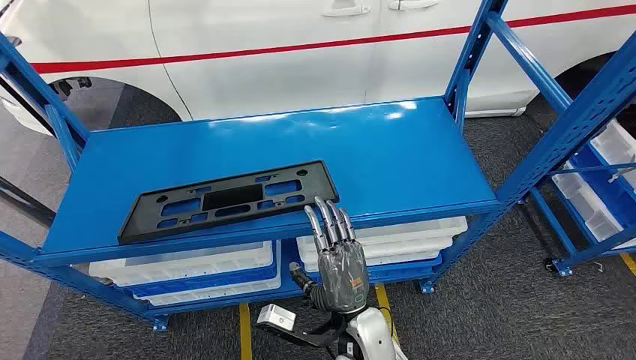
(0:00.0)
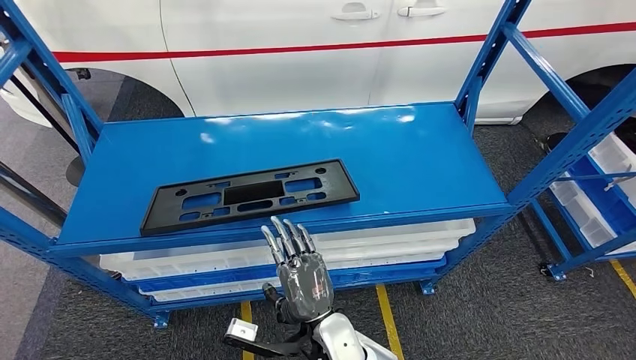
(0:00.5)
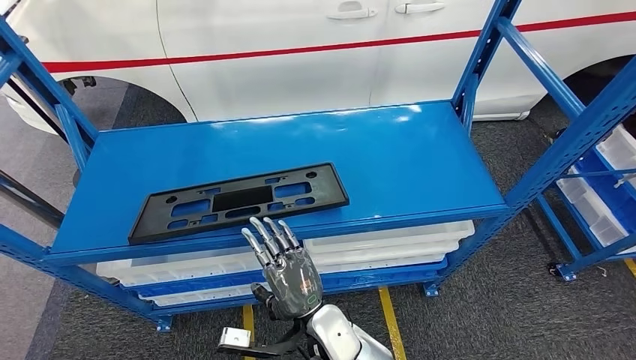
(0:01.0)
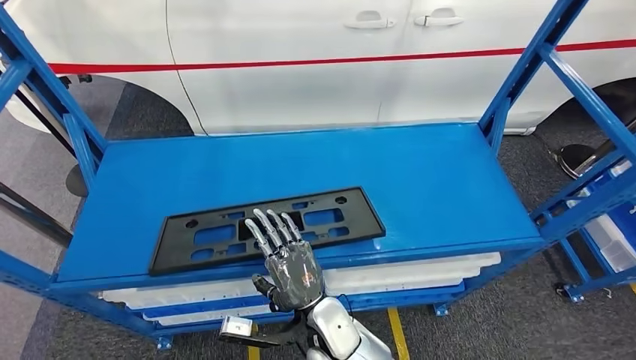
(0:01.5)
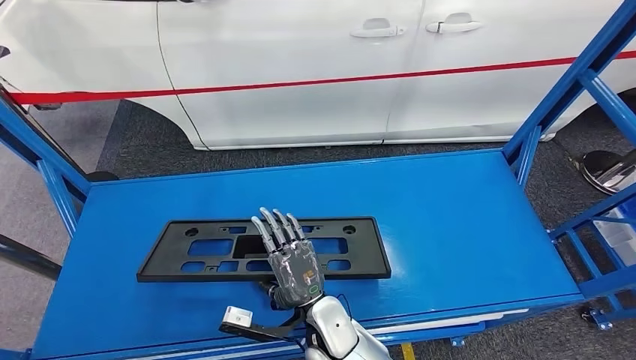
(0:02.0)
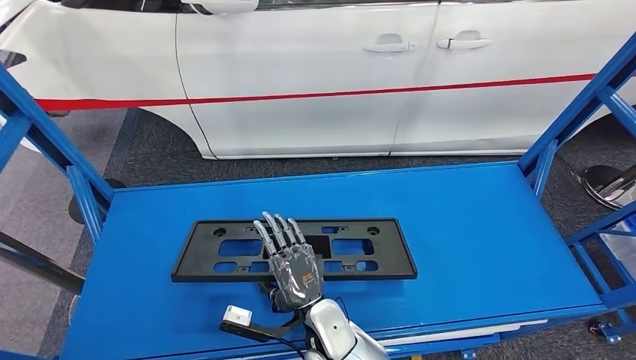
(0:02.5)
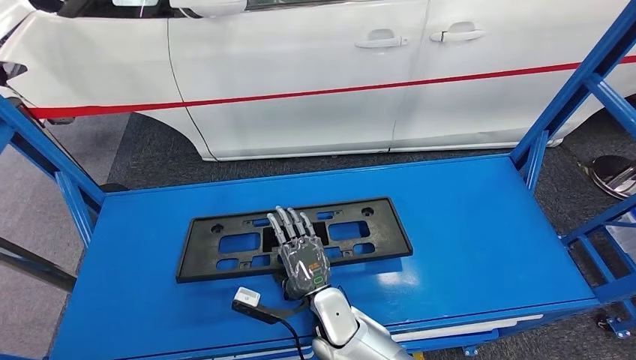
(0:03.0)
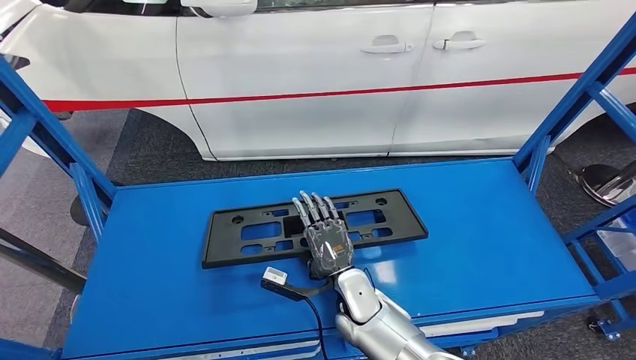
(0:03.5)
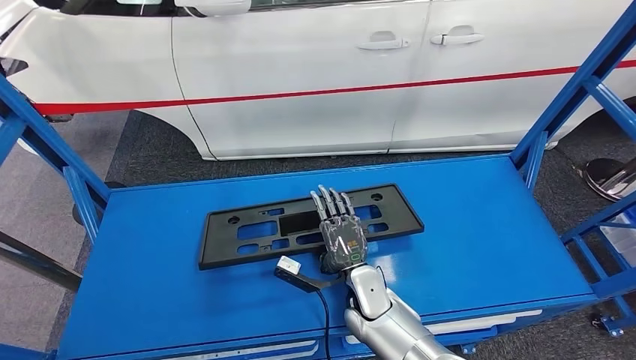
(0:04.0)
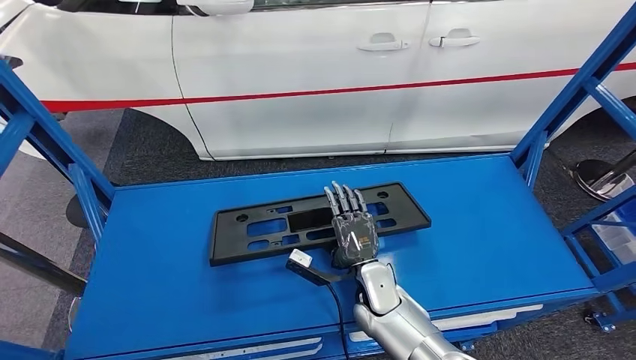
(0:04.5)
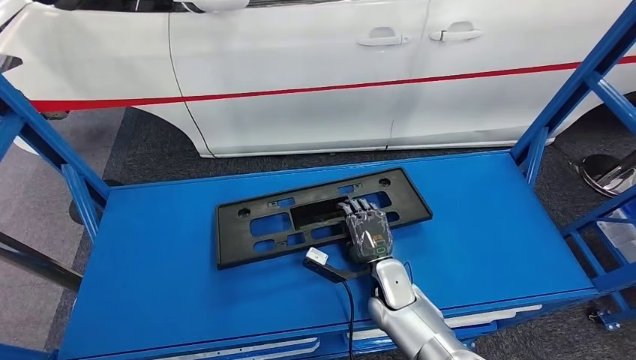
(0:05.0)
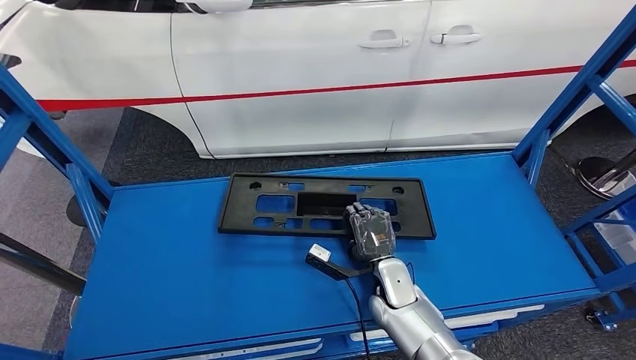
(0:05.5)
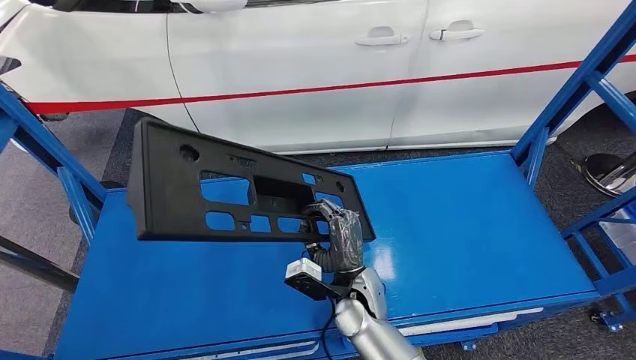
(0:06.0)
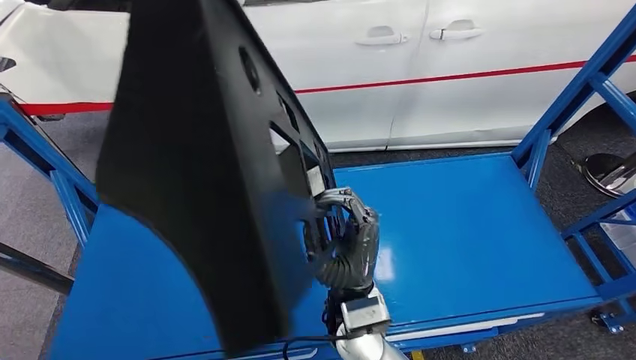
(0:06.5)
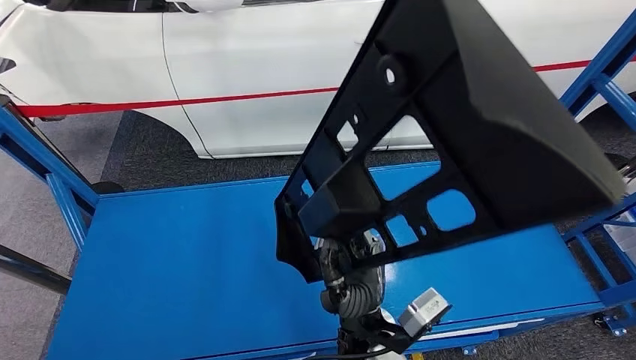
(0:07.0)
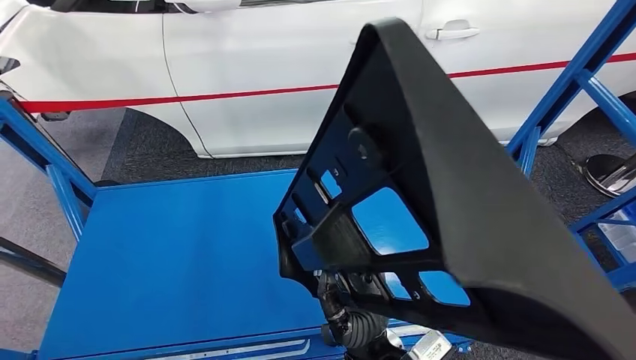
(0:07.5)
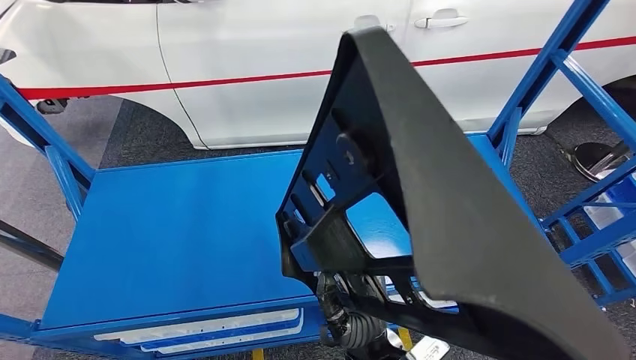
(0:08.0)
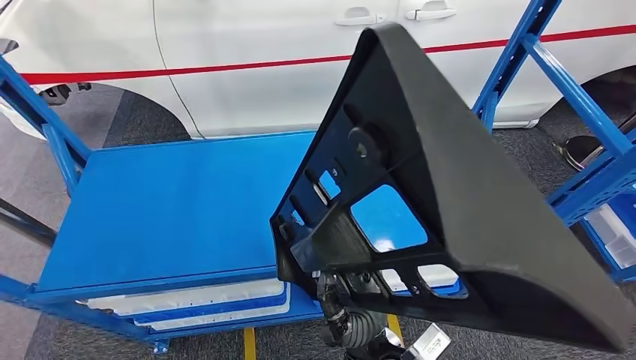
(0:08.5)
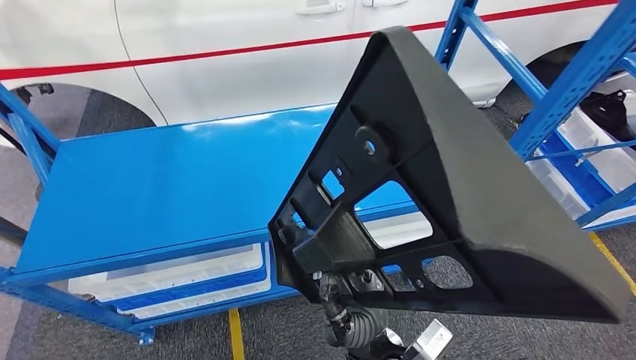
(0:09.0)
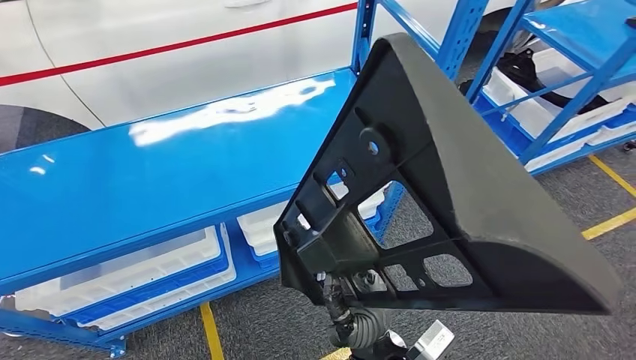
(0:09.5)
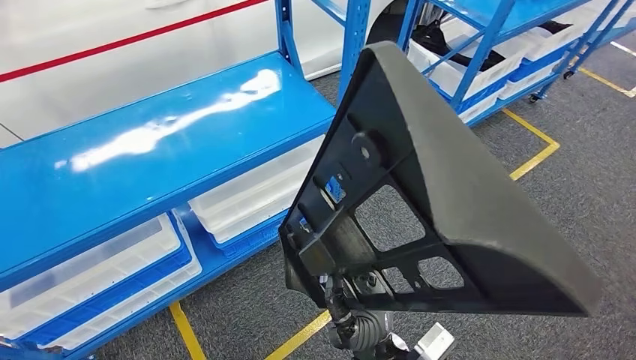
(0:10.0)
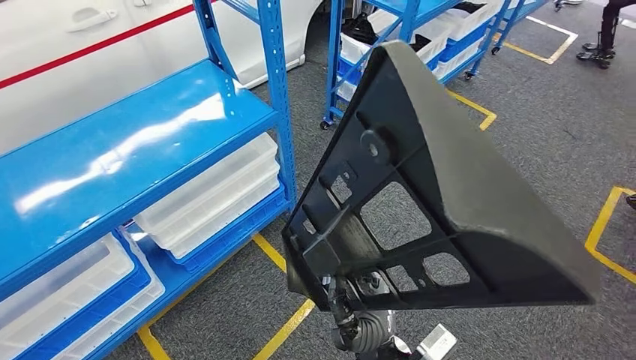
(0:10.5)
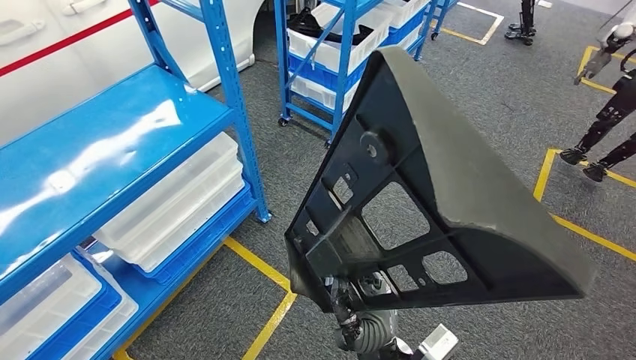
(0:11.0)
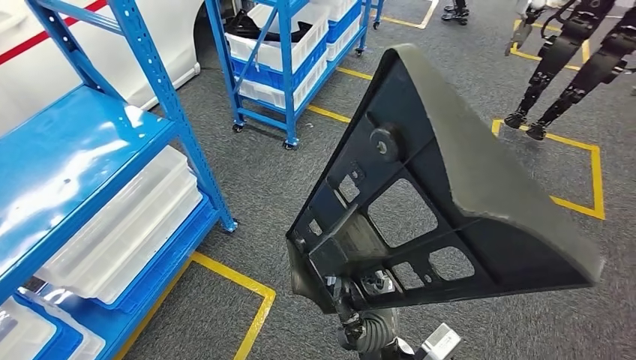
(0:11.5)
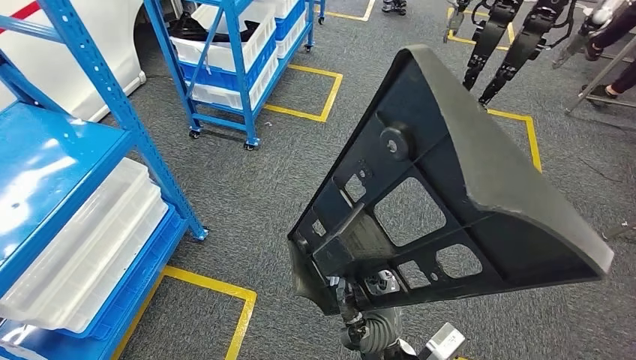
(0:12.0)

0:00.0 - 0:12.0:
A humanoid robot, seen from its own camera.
Step, 0:00.0 - 0:09.5: Pick up the large material from the shelf.

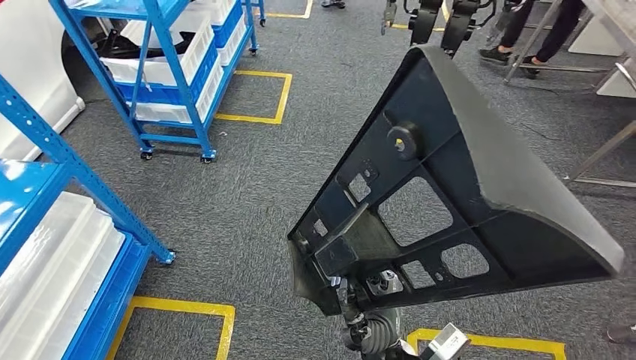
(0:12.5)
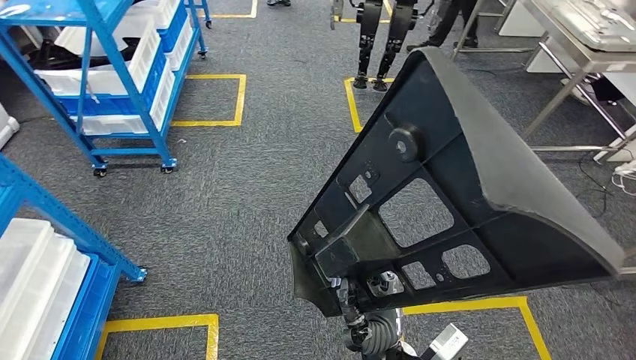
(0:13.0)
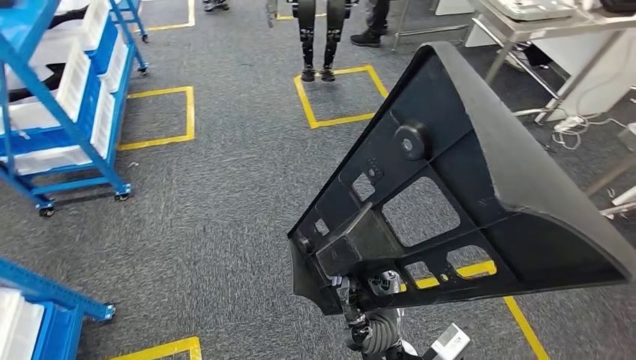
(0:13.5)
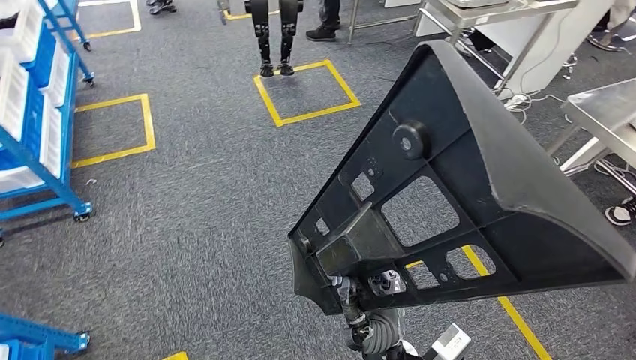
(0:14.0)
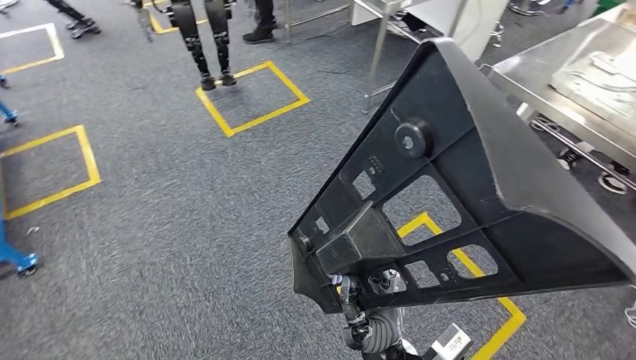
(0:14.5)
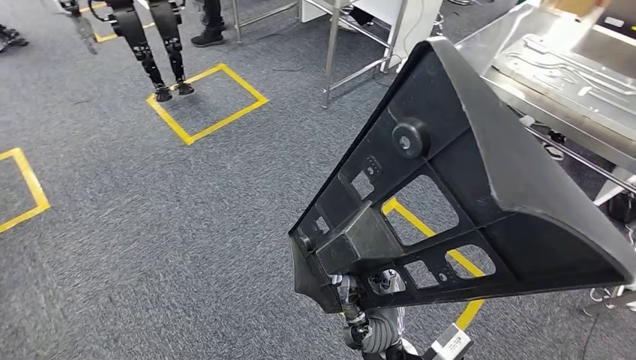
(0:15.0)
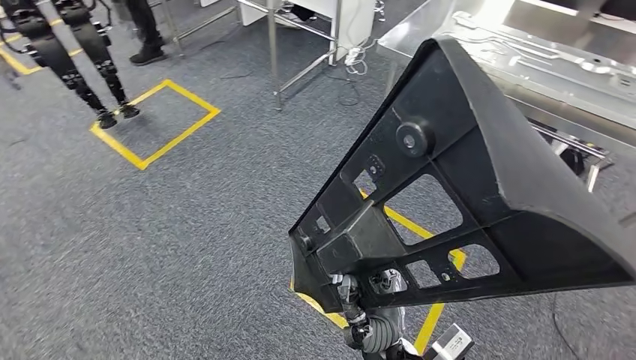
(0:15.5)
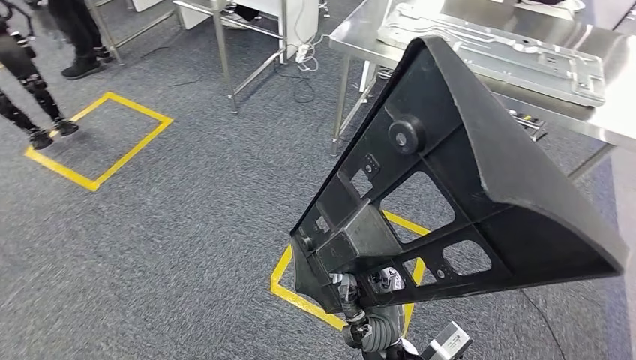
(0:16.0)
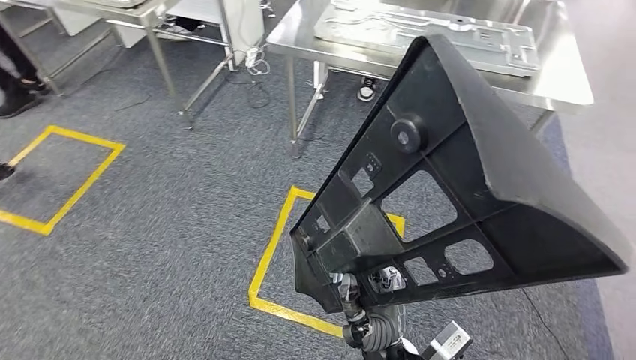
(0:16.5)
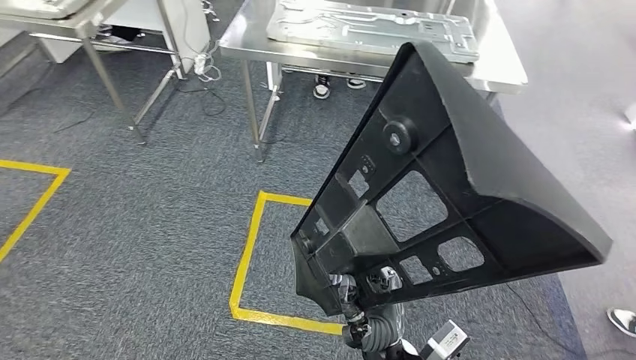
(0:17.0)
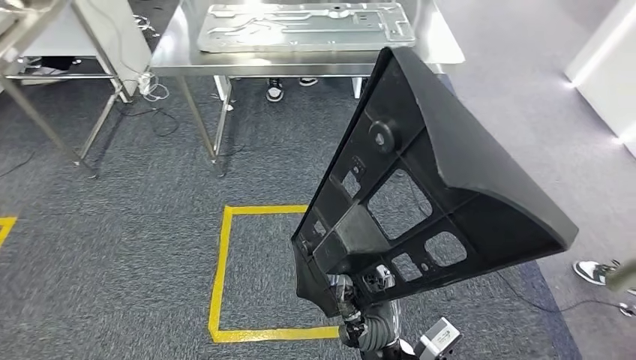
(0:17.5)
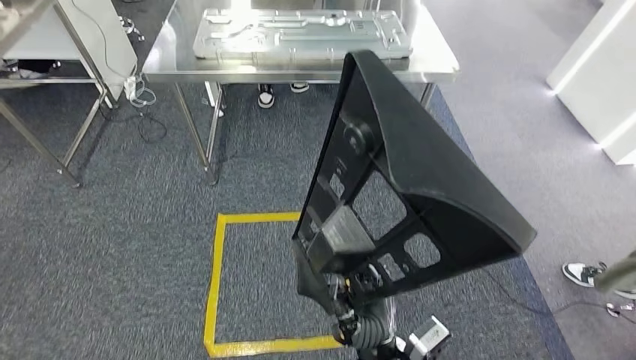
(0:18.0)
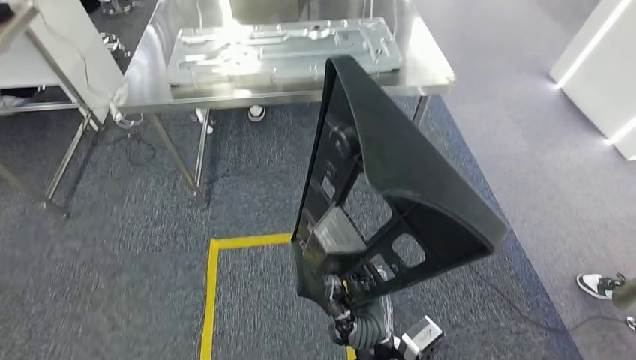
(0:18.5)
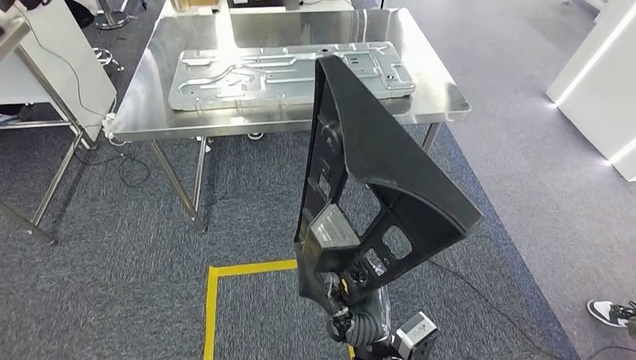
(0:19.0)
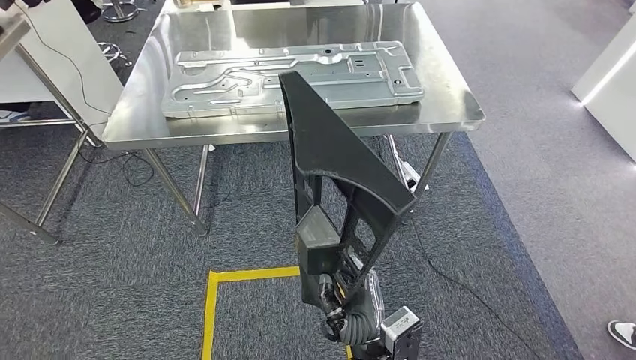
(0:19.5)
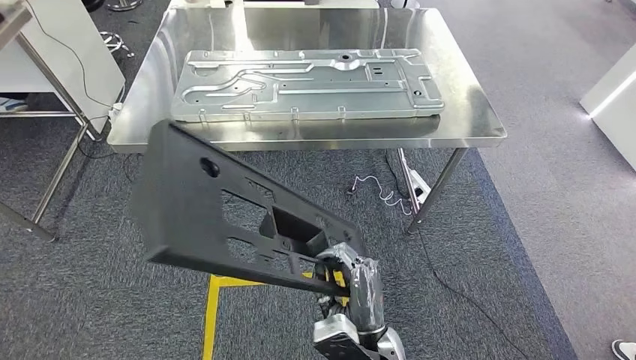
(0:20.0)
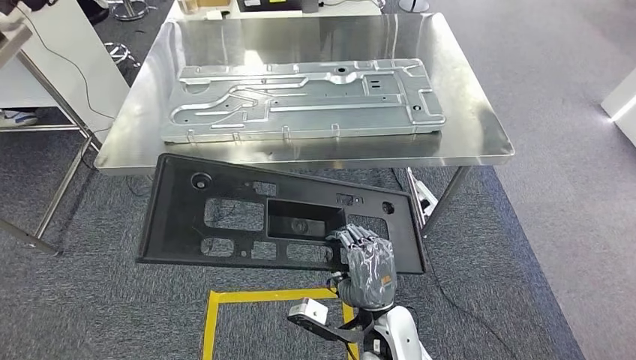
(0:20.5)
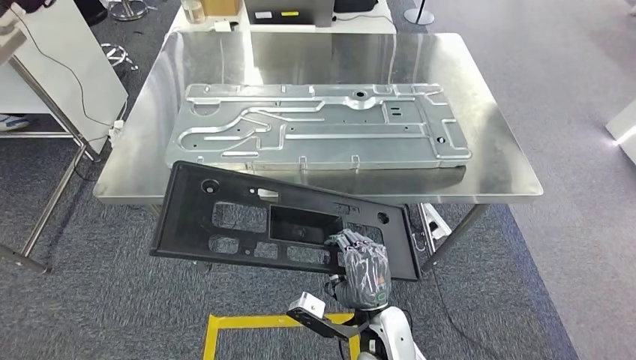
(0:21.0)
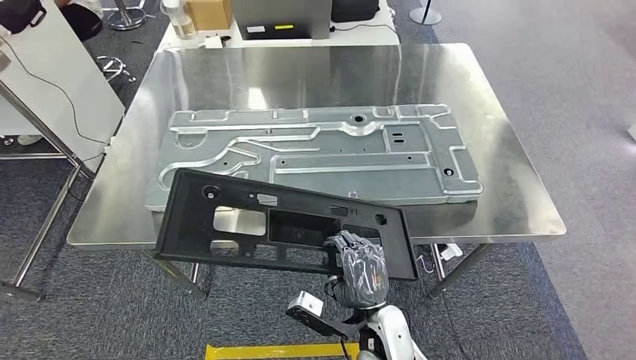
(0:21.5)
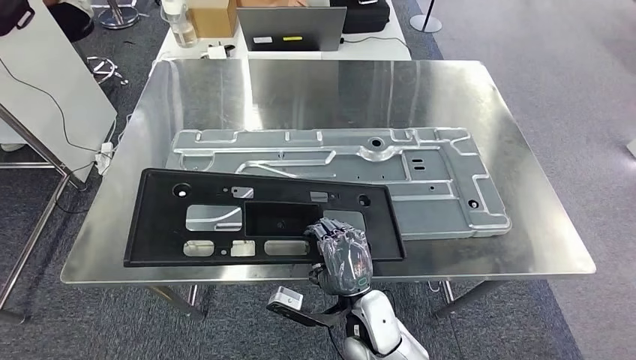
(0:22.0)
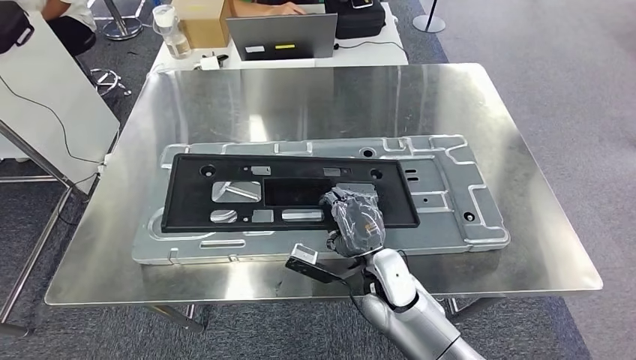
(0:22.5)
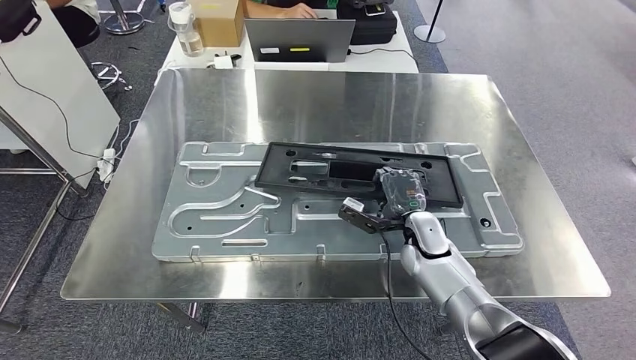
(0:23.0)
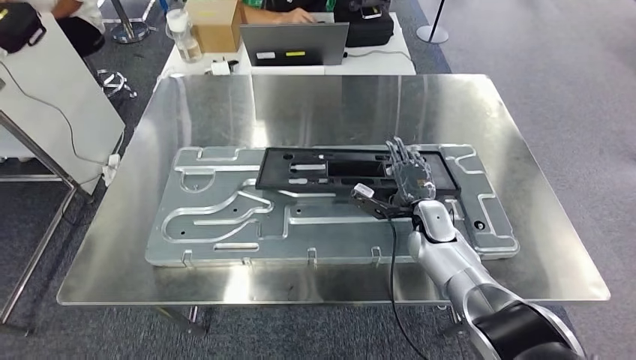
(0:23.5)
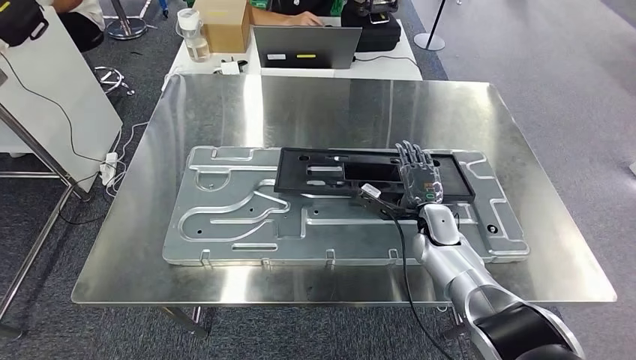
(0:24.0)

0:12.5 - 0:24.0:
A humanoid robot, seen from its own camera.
Step, 0:12.5 - 0:22.0: Move the large material to the workbench.
